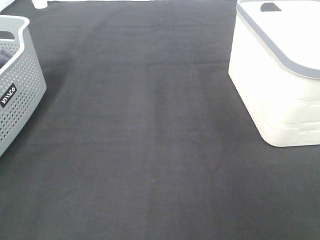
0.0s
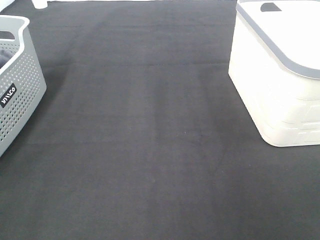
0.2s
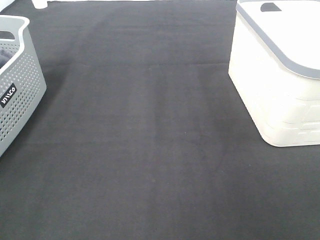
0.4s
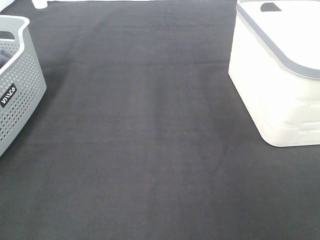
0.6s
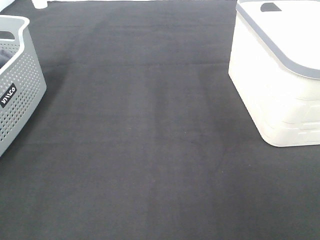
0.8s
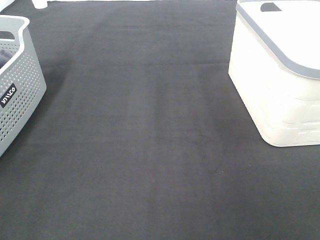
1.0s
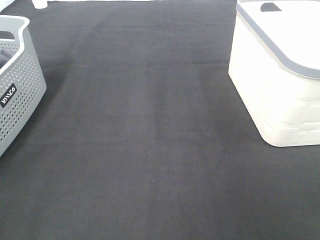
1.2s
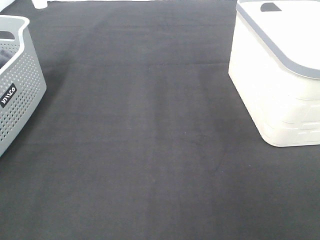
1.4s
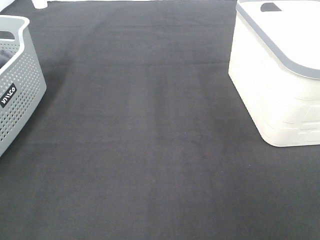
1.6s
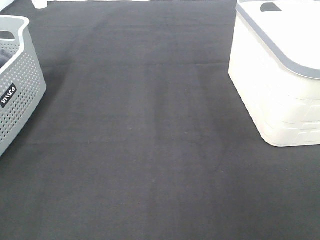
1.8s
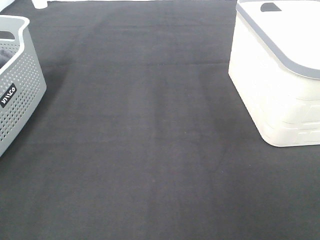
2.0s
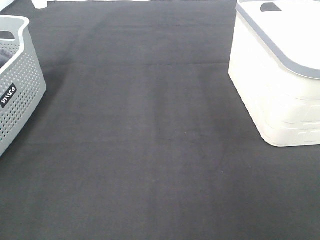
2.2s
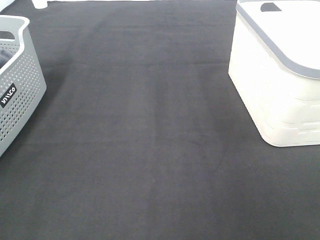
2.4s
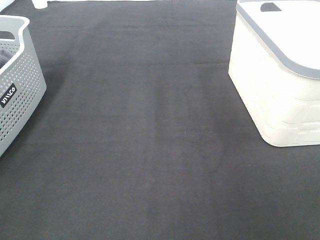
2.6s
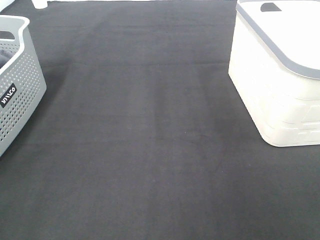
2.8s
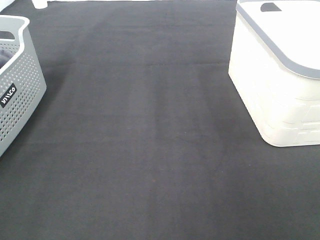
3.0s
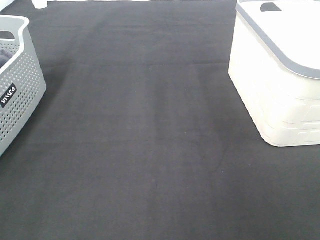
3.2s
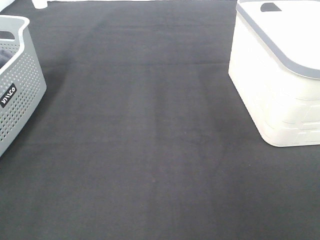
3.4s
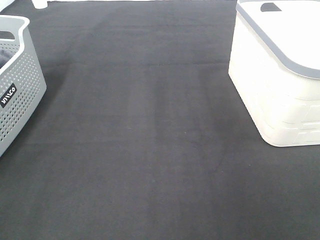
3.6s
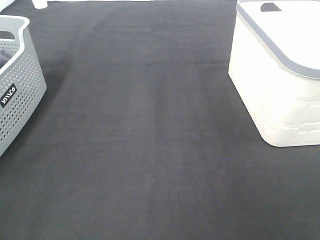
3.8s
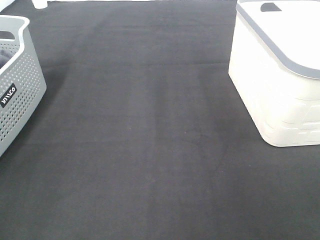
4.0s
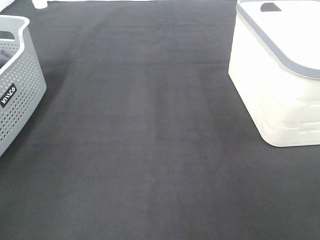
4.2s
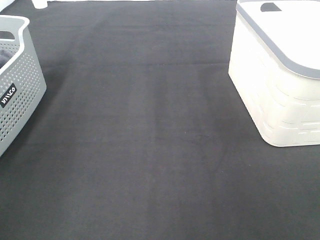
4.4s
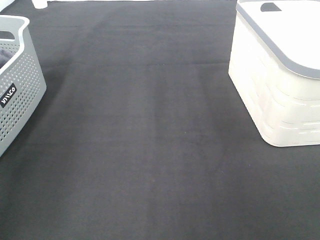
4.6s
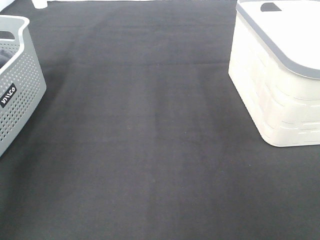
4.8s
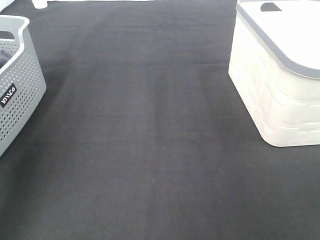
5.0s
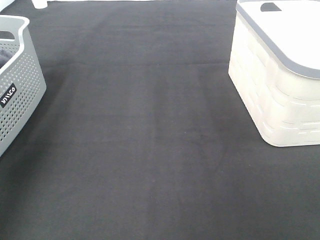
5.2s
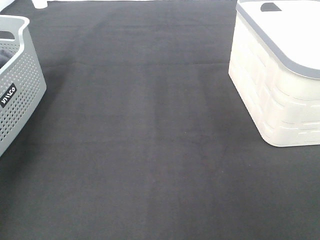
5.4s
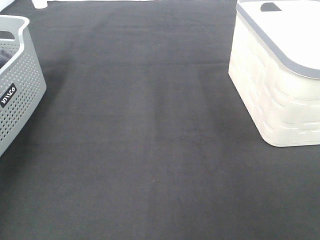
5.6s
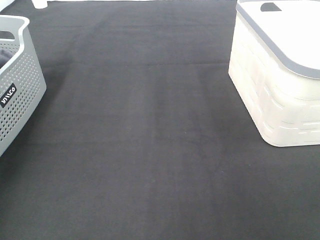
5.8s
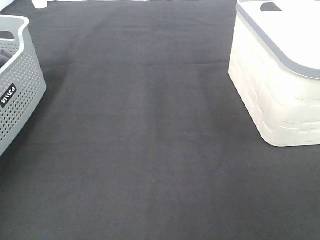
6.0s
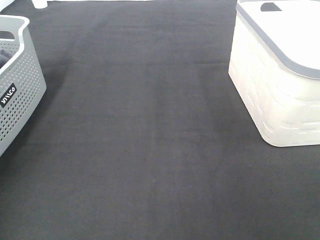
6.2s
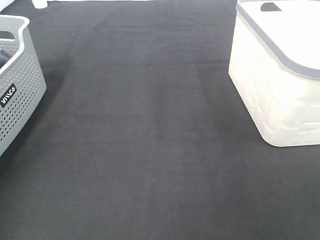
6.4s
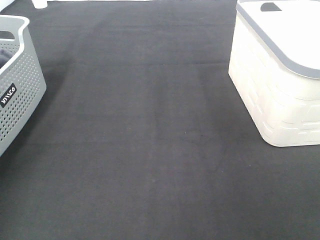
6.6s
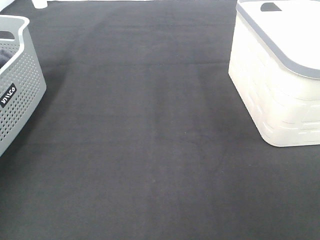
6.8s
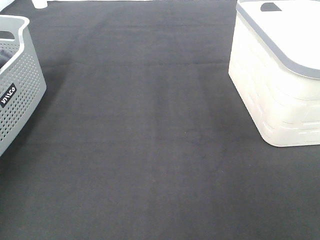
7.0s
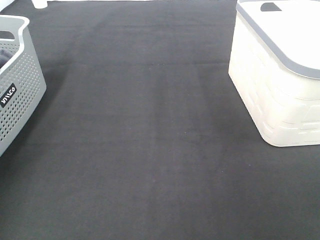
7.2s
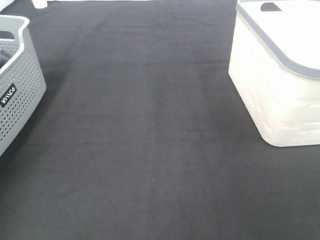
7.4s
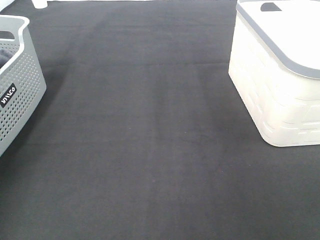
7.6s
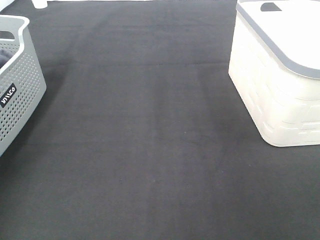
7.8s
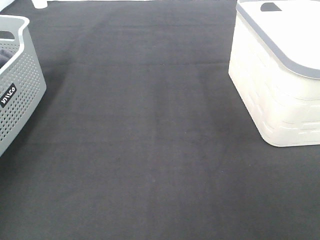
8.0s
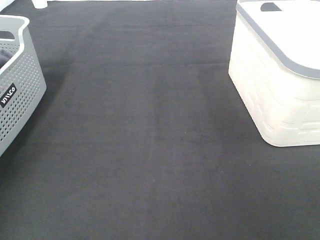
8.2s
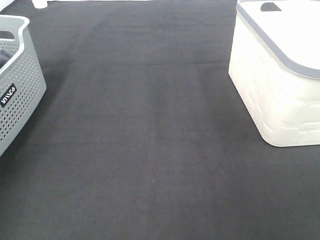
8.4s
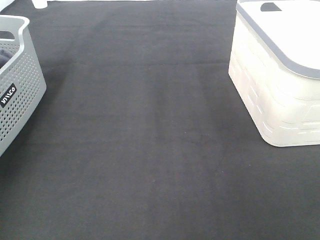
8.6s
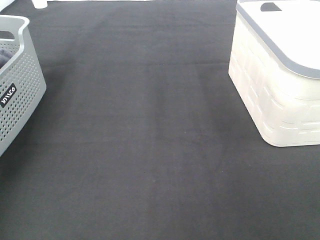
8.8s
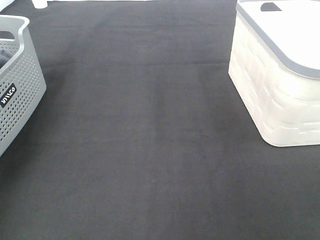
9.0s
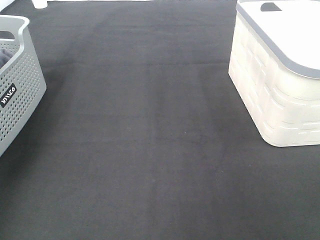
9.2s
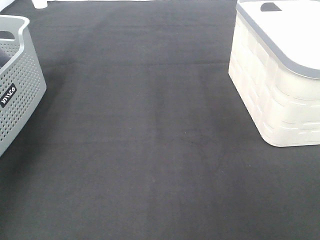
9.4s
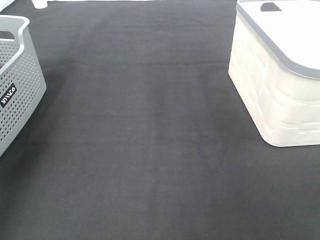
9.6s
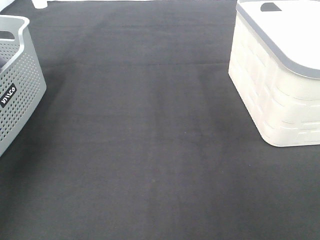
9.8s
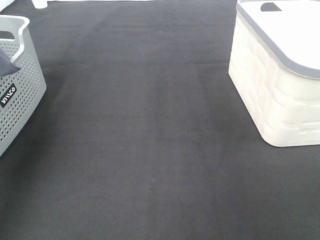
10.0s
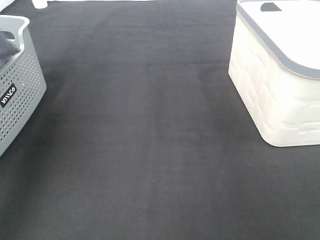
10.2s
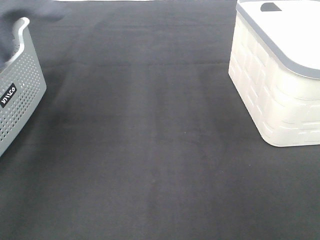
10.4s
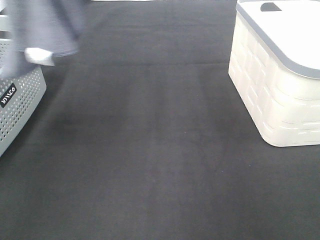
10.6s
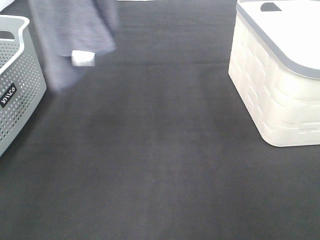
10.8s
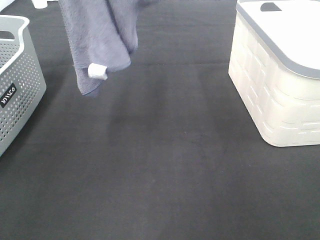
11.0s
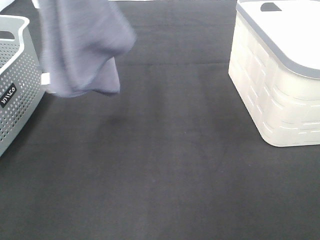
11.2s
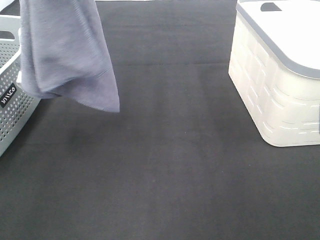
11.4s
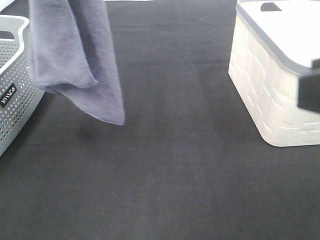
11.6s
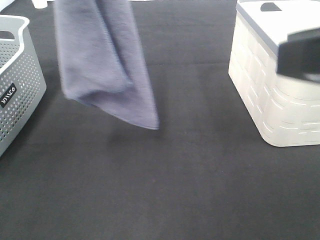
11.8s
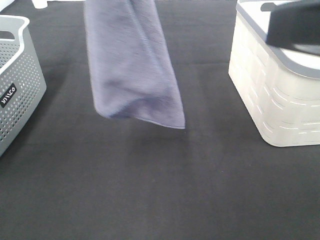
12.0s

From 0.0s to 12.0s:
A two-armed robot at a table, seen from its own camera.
Task of the whole recording: Remove the towel and place it.
From 0.0s to 3.0s: Both grippers stay about where they are.
From 9.0s to 10.4s: The left gripper shifts some 25 cm upward, to the right and backward.
From 10.4s to 12.0s: The right gripper travels forward and to the left by roughly 15 cm, while the left gripper travels to the right by about 10 cm.

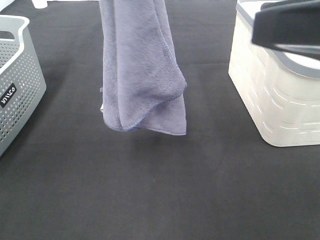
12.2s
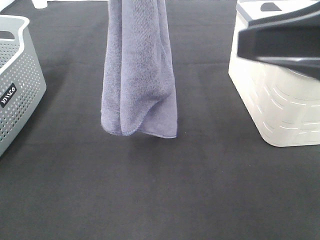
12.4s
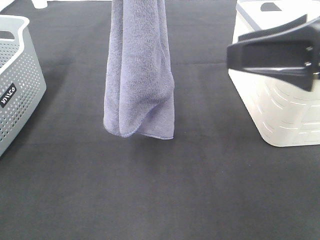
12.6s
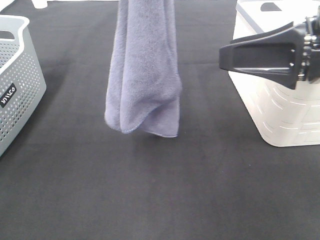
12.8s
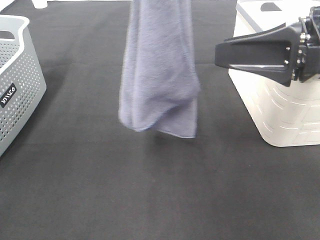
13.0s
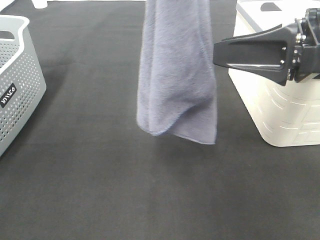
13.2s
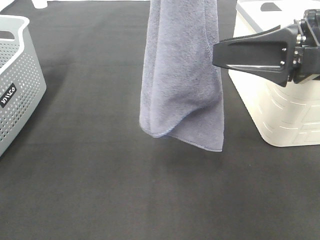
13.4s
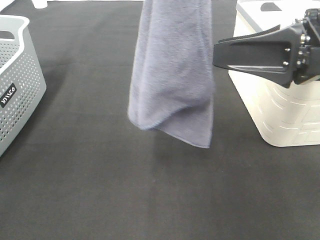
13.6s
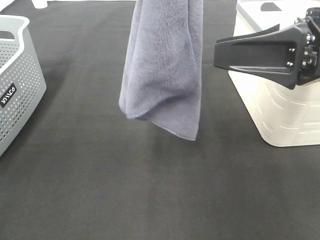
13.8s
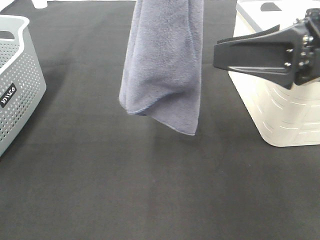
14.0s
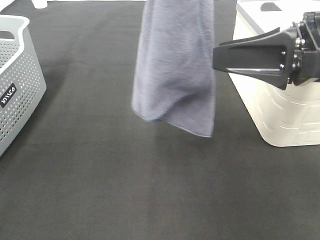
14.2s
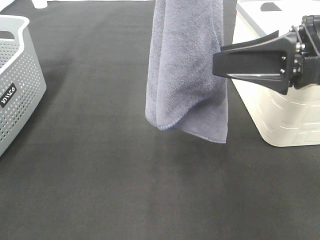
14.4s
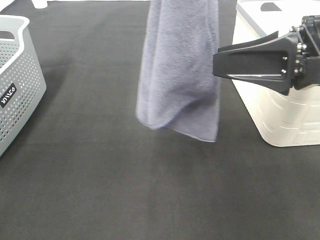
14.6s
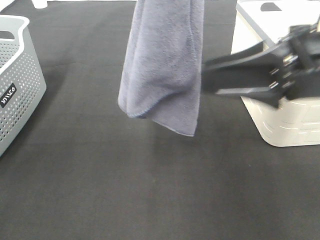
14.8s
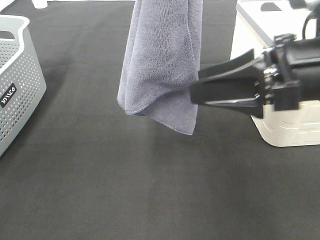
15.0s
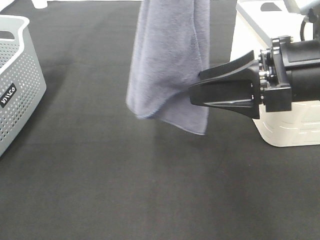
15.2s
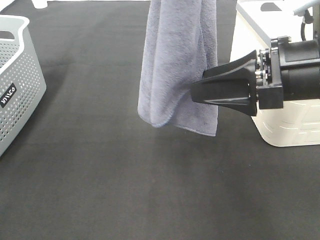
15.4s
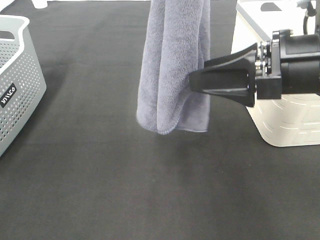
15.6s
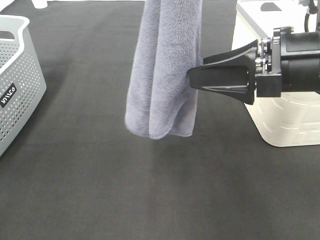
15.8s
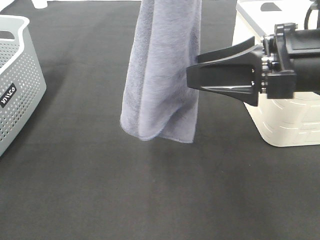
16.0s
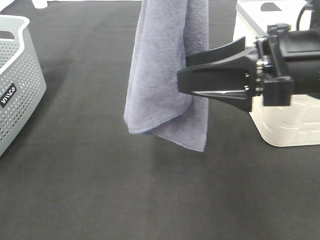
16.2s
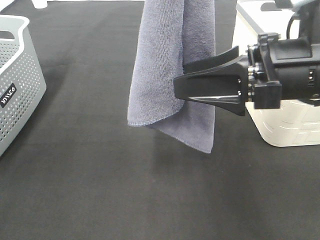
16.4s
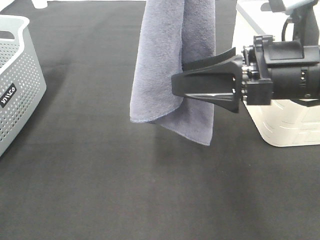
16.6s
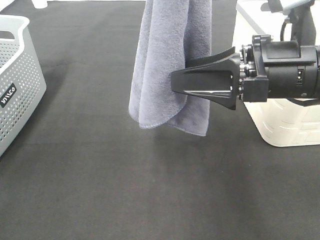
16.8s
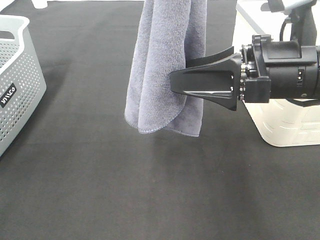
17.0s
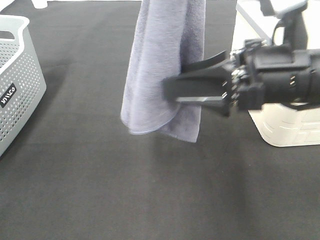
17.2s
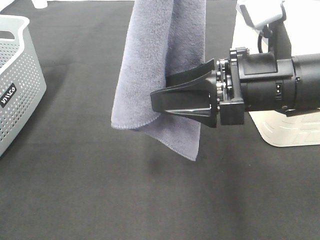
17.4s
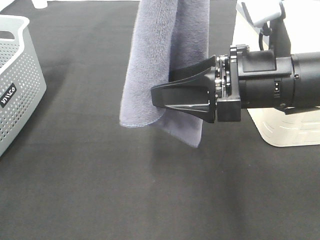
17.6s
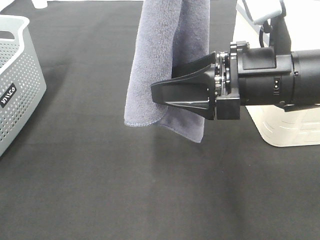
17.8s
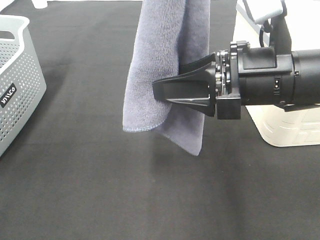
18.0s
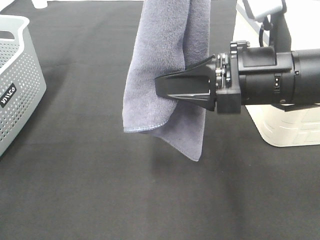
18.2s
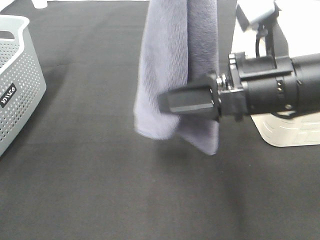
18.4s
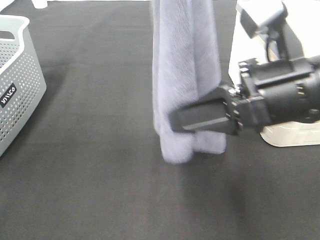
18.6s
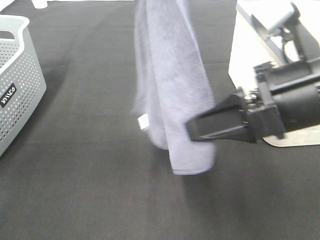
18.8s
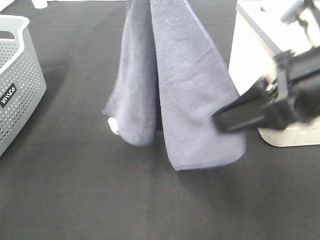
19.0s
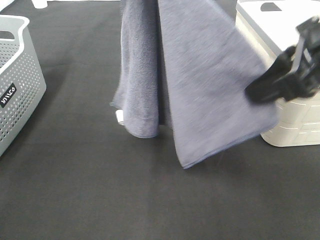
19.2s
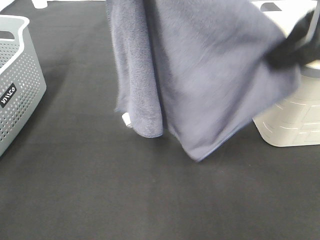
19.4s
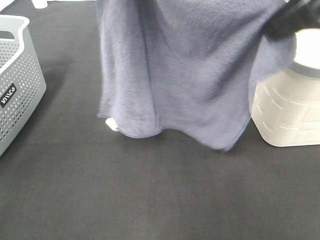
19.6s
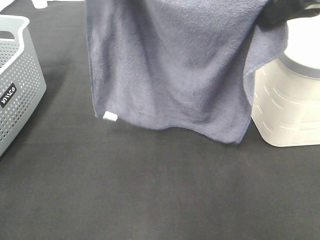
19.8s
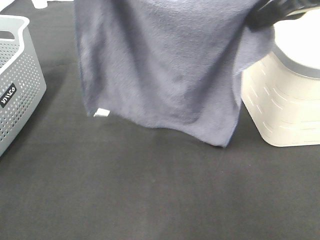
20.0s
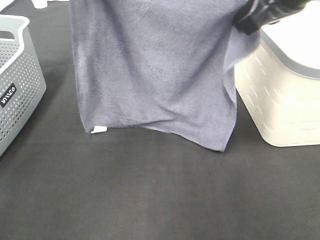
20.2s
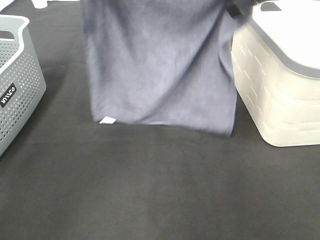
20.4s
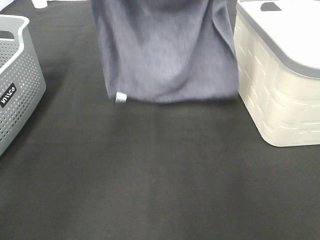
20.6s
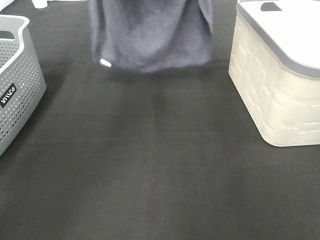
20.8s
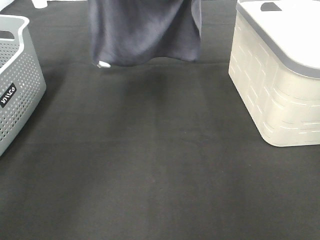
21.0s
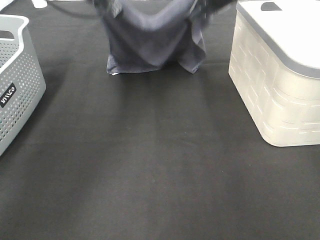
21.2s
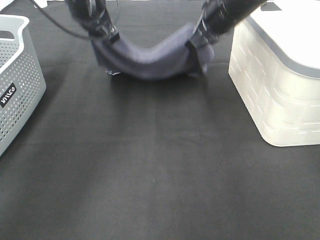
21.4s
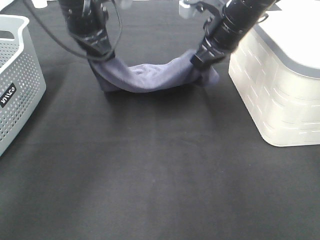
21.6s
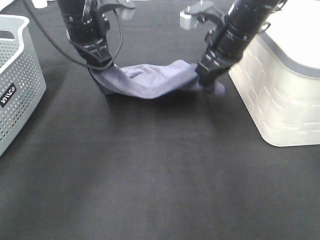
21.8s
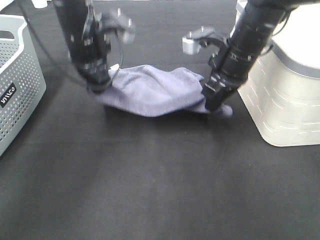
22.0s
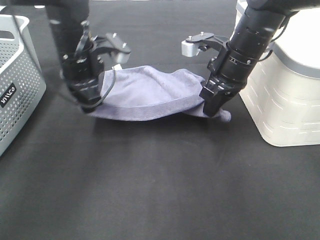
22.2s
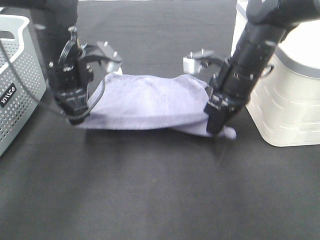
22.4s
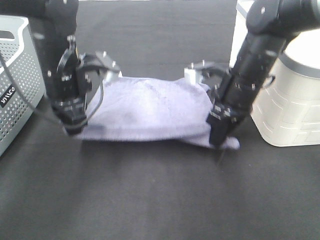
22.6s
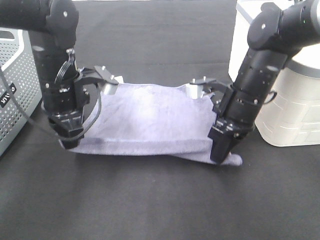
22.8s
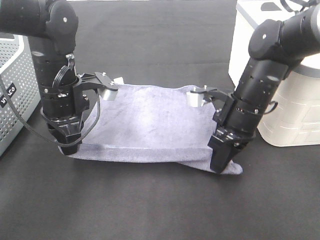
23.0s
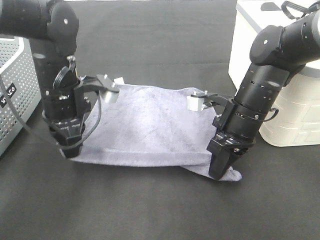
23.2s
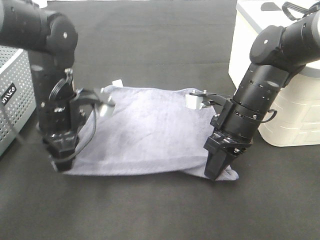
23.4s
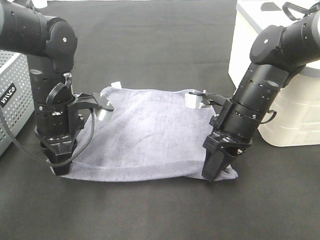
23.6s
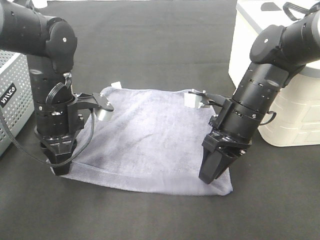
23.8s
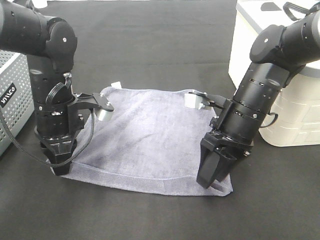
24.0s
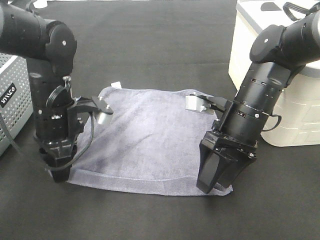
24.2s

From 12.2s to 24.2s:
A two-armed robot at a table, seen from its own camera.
Task of the whole recording: Remove the towel and place it.
Step, from 12.2s to 15.8s: Right hand: grab a corner of the grey towel and straighten it.
Step, from 16.0s to 19.0s: Right hand: spread the grey towel flat on the table.
Step, from 16.0s to 19.6s: Left hand: spread the grey towel flat on the table.
From 12.2s to 13.8s: The right gripper goes some 10 cm forward and downward.
From 13.8s to 16.6s: The grippers make only small movements.
From 16.6s to 18.2s: The right gripper closes.
From 18.2s to 19.8s: The right gripper goes roughly 15 cm upward. Meanwhile the left gripper moves downward, about 5 cm.
From 19.8s to 21.2s: The left gripper goes approximately 20 cm downward and forward. Meanwhile the right gripper is displaced forward and downward by roughly 25 cm.
From 21.2s to 22.6s: The right gripper goes approximately 15 cm backward and downward. The left gripper moves downward and backward, some 15 cm.
From 22.6s to 24.2s: The left gripper changes place by some 5 cm, while the right gripper shifts by roughly 5 cm, and opens its fingers.
